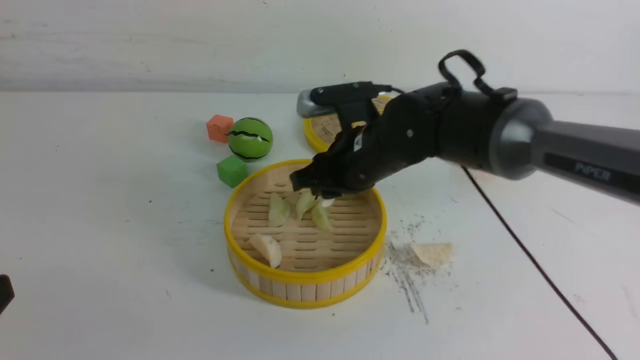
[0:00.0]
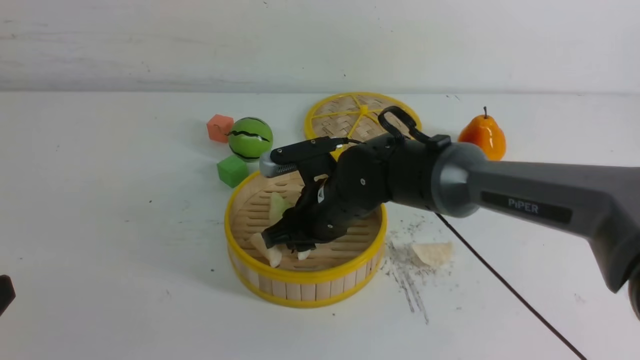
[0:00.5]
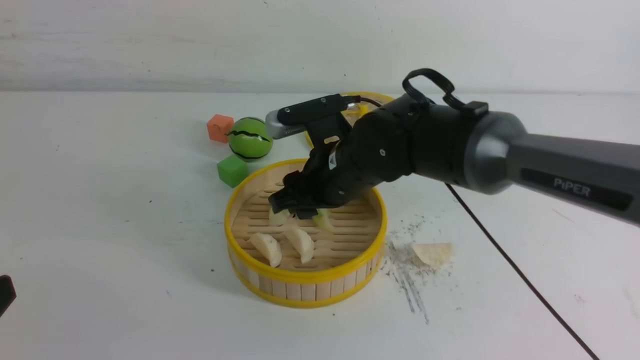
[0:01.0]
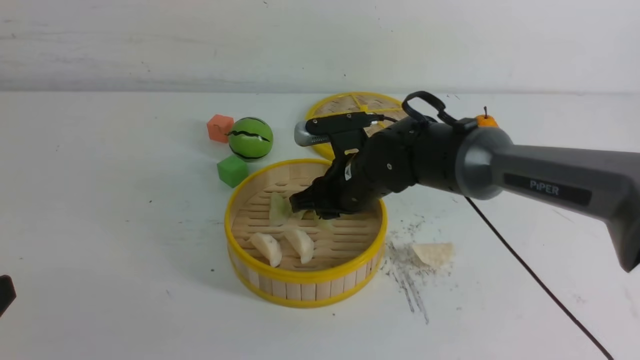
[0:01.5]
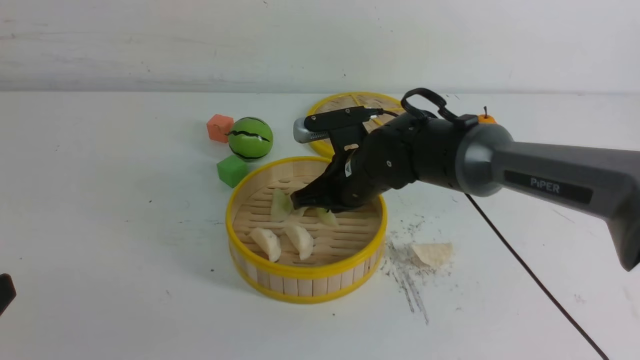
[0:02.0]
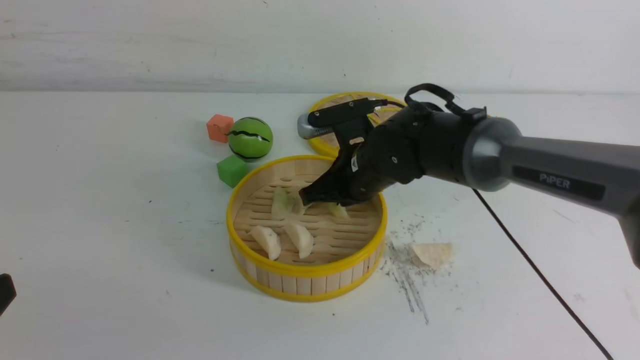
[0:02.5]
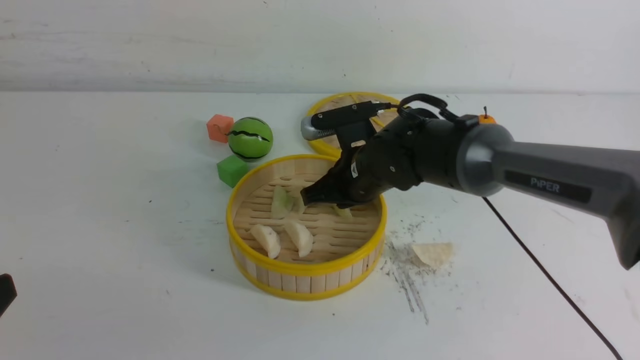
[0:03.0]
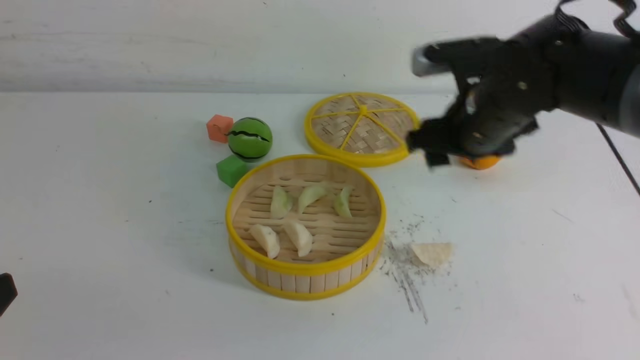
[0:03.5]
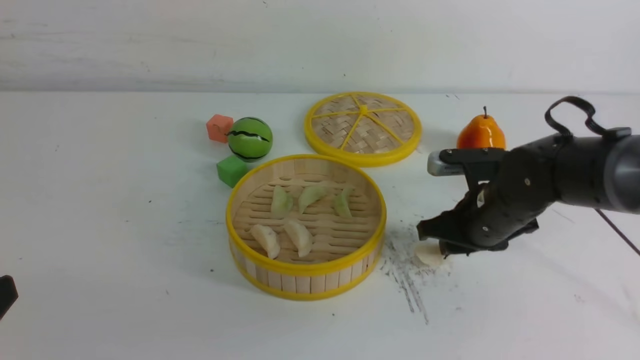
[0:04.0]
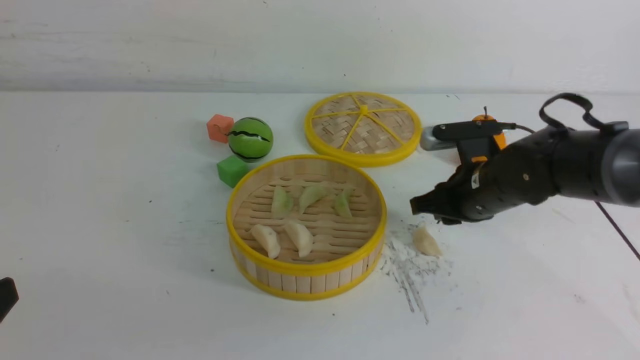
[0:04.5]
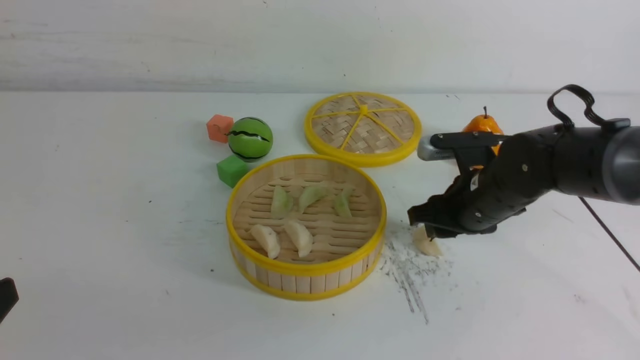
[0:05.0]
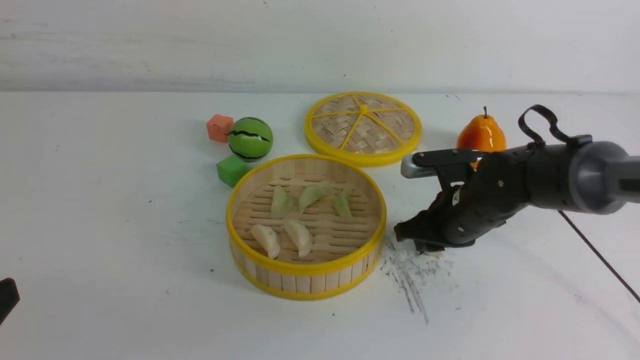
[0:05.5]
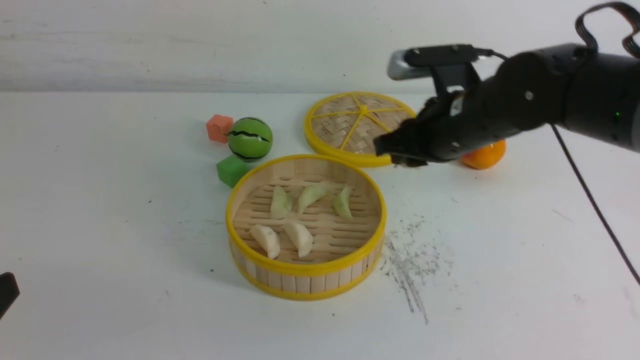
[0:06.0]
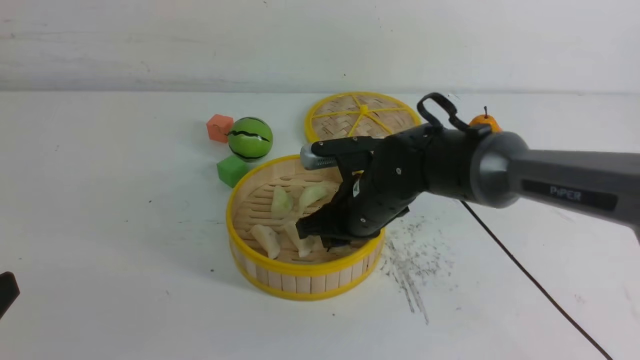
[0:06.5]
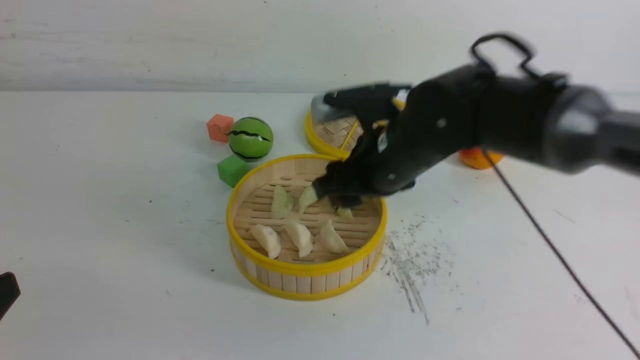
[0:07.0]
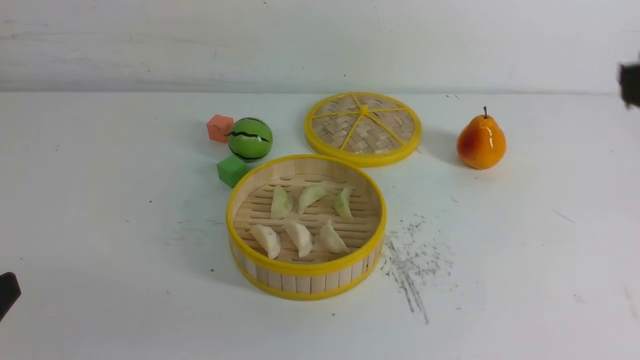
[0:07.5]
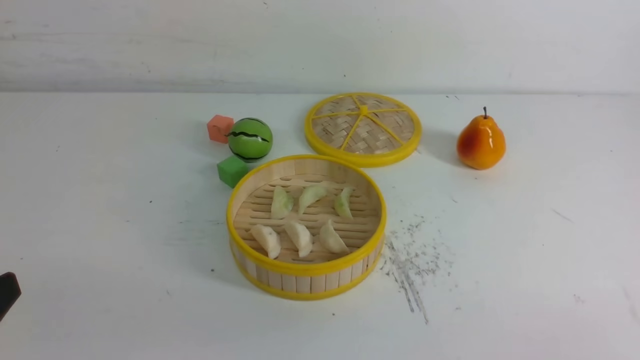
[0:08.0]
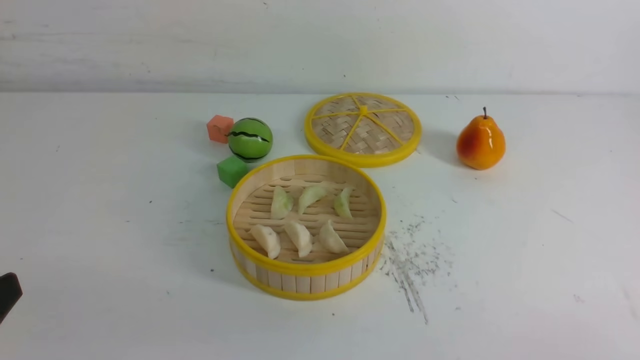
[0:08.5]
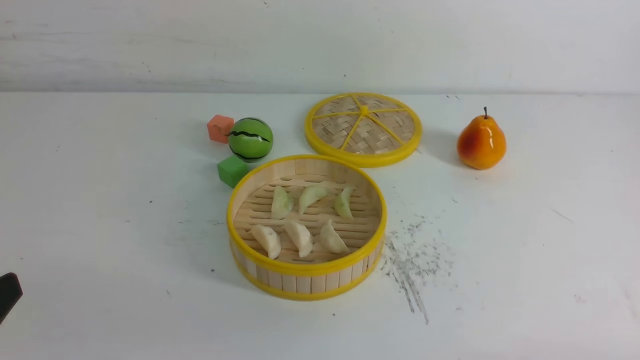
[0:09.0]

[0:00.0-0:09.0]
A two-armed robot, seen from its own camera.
Task of the whole recording: put the dumplings into the steamer on the white table.
Step, 0:00.0 to 0:05.5: use the right arm to grab a dumpling.
Step, 0:06.0 to 0:06.5: use the right arm to put the dumpling into the steamer.
0:00.0 to 0:02.0: The right gripper closes up.
0:02.0 to 0:04.5: The right gripper goes about 15 cm to the right, and opens.
0:04.5 to 0:07.0: The right gripper moves up and down over roughly 15 cm, changing direction 2 times, and opens its fingers.
0:07.0 to 0:09.0: The right gripper moves backward, to the right and downward, roughly 40 cm, and closes.

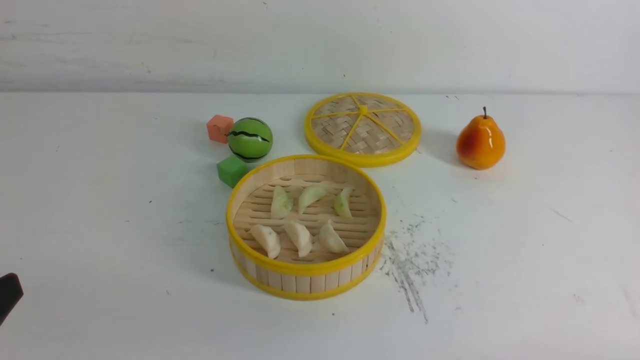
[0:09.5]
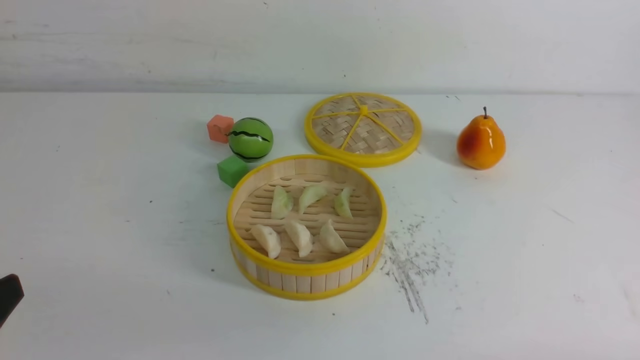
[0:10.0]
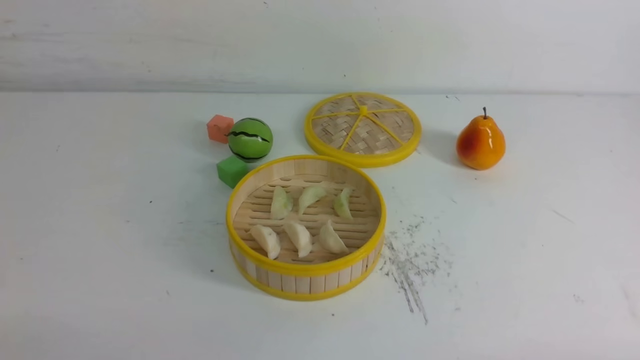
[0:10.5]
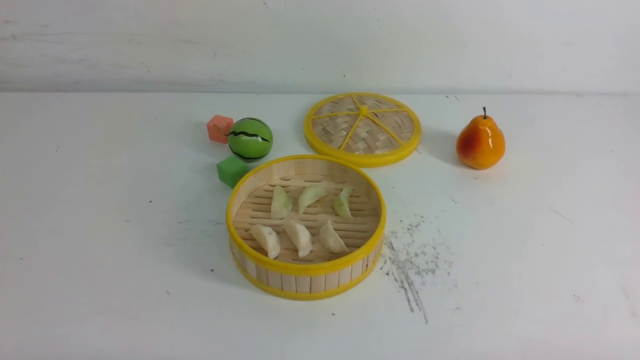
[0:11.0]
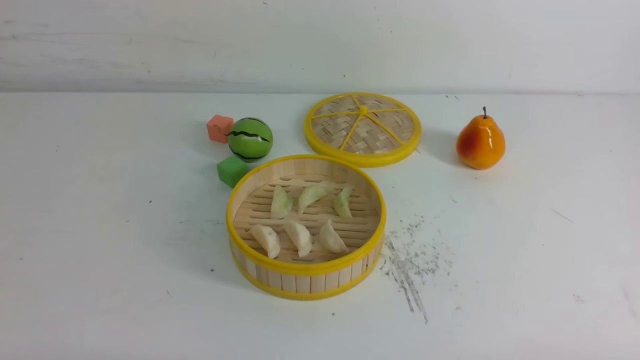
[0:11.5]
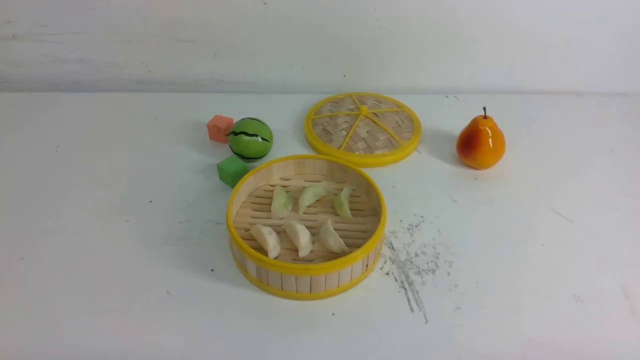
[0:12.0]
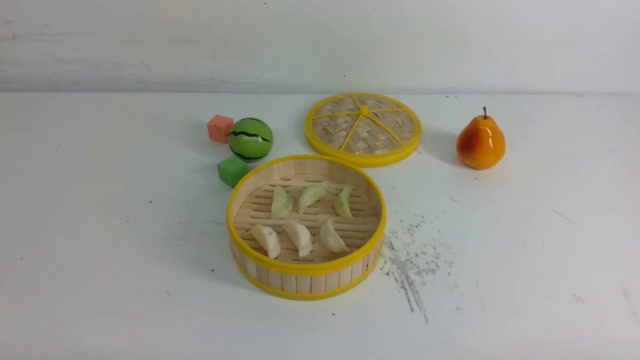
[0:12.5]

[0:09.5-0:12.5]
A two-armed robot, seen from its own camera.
Task of the whole recording: put the dumplings into the steamer on the white table.
0:11.0 to 0:12.5: The two grippers keep their place.
